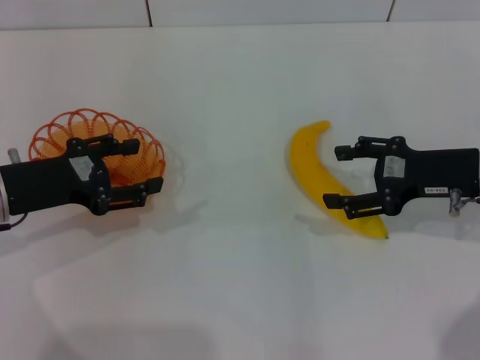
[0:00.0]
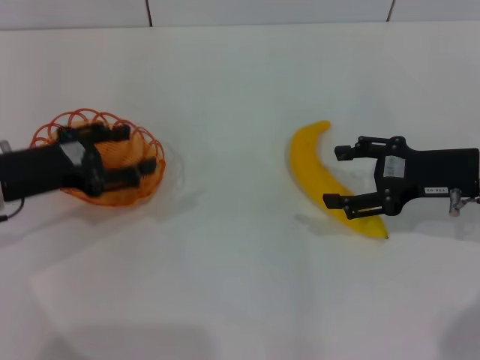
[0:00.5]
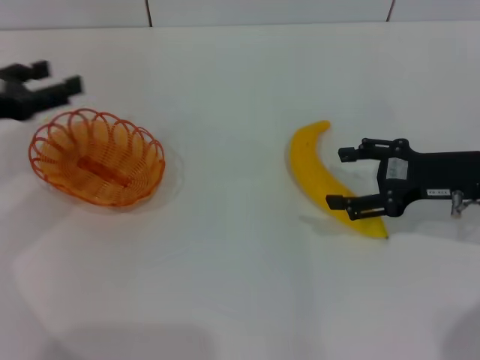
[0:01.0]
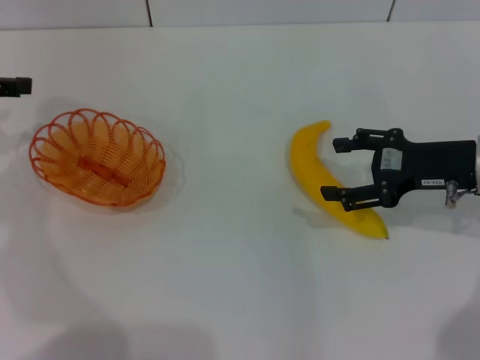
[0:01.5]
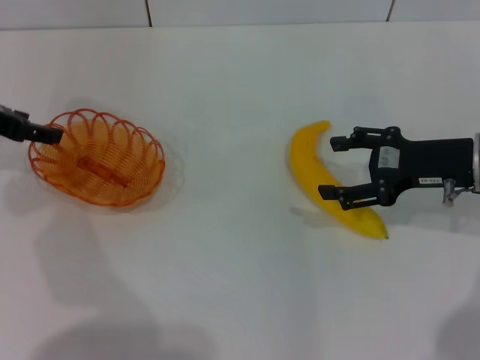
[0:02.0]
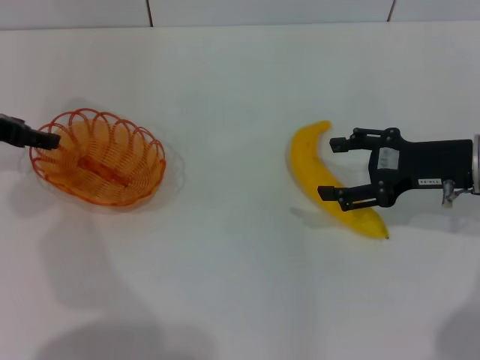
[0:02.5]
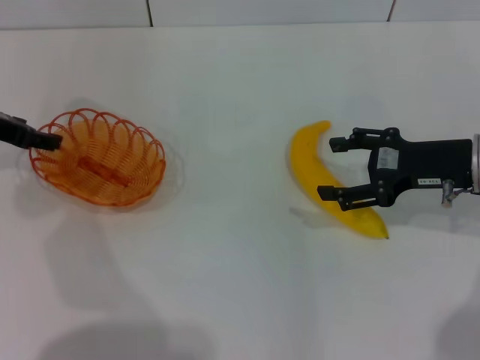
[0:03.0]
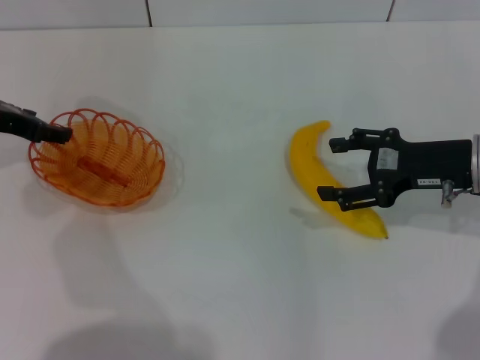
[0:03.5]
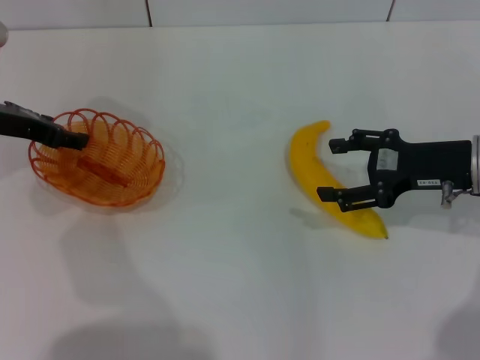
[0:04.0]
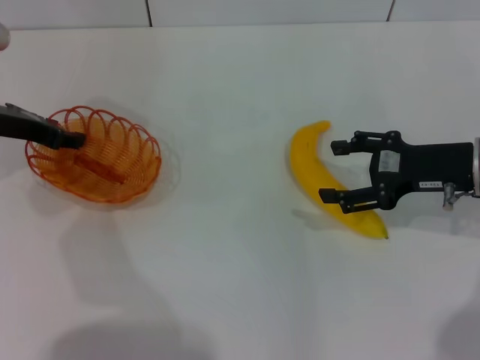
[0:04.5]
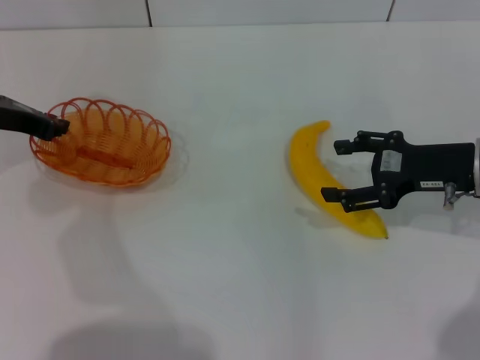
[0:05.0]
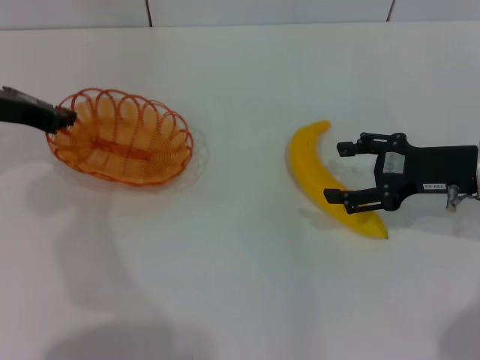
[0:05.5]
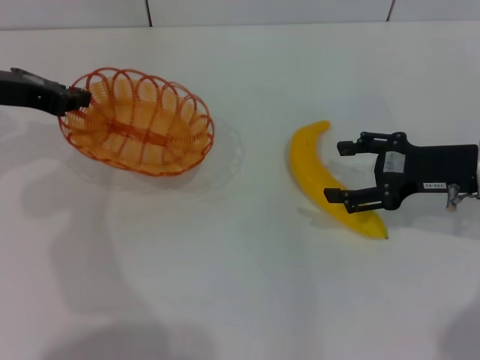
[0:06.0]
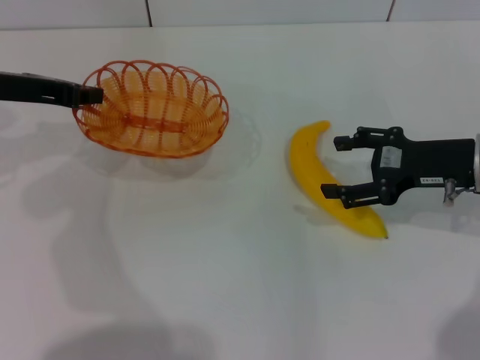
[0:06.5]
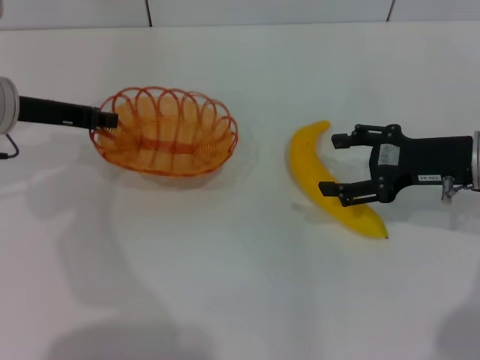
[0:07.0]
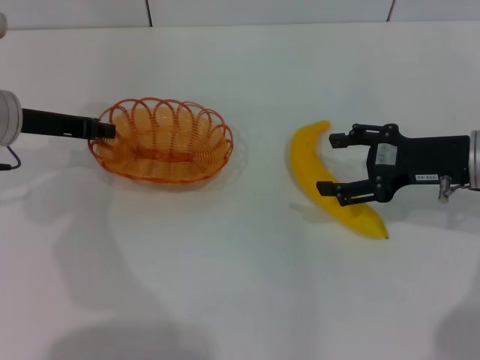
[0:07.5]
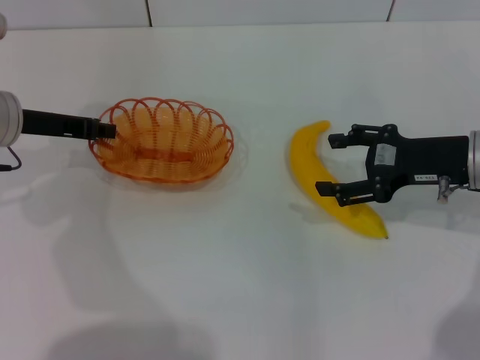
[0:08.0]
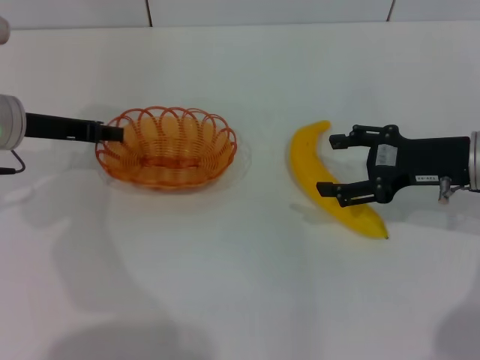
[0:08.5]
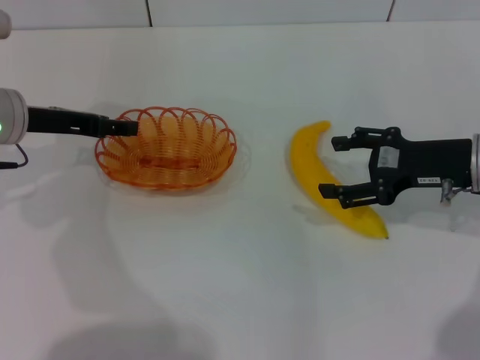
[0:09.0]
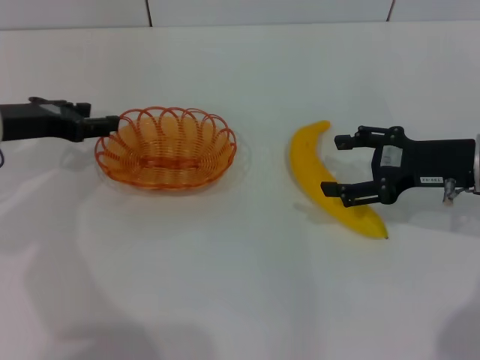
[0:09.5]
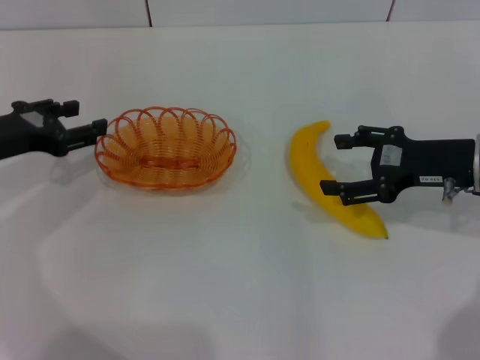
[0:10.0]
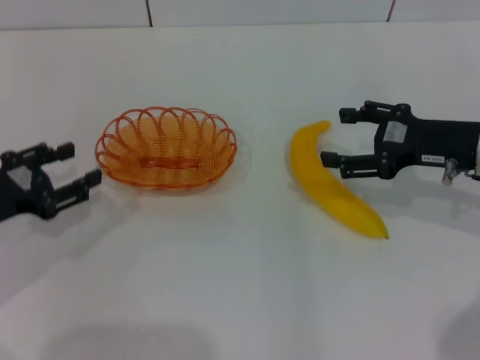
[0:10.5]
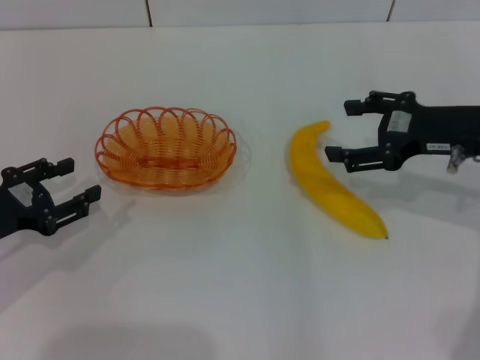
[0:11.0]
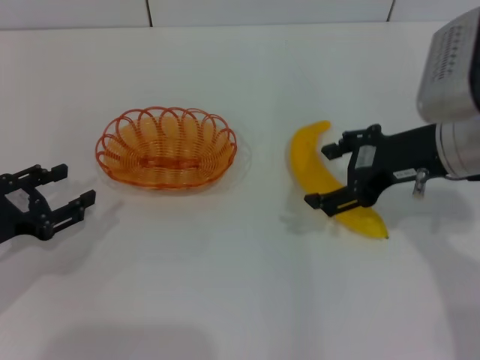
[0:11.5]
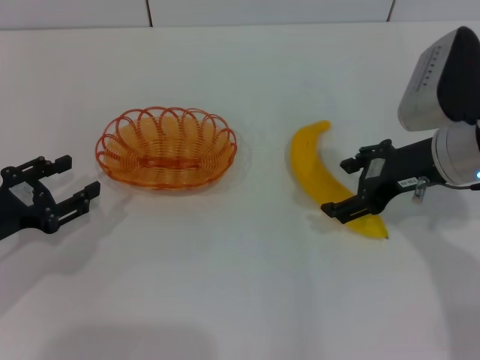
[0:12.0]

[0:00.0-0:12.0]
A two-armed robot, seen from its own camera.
Step, 0:00.0 to 0:05.5: Pick up the basket with the left gripper.
Step, 0:06.0 to 0:09.0: Place the basket in the center of view with the left gripper.
0:00.0 to 0:02.0: The left gripper goes roughly 10 cm forward and upward.
0:02.0 to 0:04.0: There are only small adjustments of the grippers.
0:04.0 to 0:06.0: The left gripper closes its fingers.
0:06.0 to 0:08.0: The left gripper goes roughly 5 cm downward.
0:08.0 to 0:10.0: The left gripper moves some 5 cm, and opens.
0:10.0 to 0:12.0: The right gripper heads to the left, covering roughly 5 cm. Meanwhile the left gripper is displaced backward and downward by roughly 10 cm.

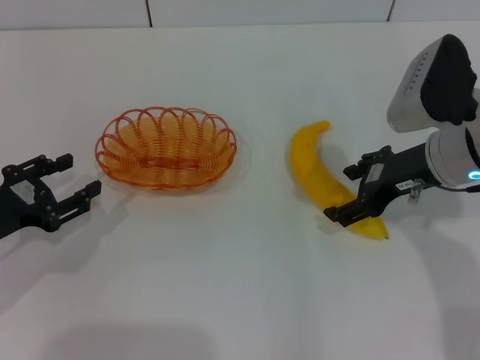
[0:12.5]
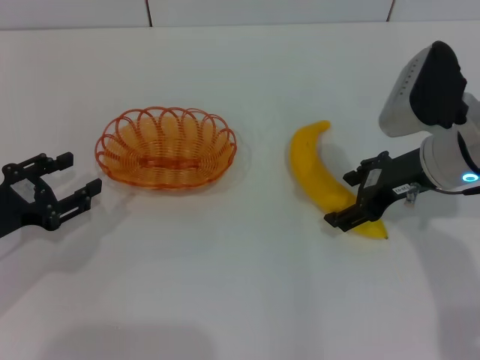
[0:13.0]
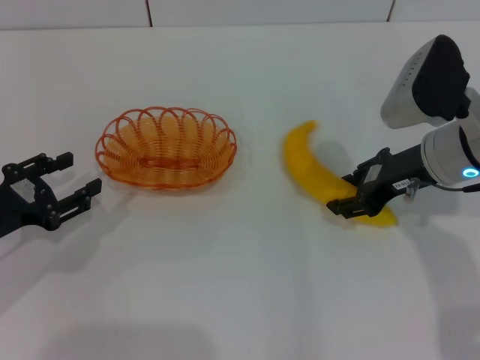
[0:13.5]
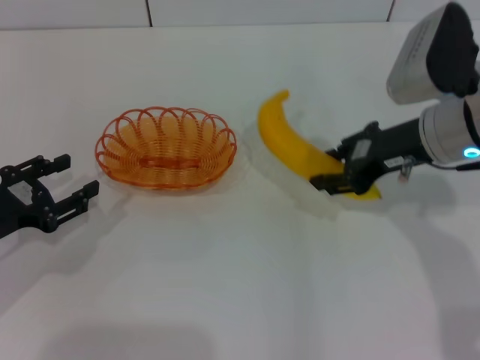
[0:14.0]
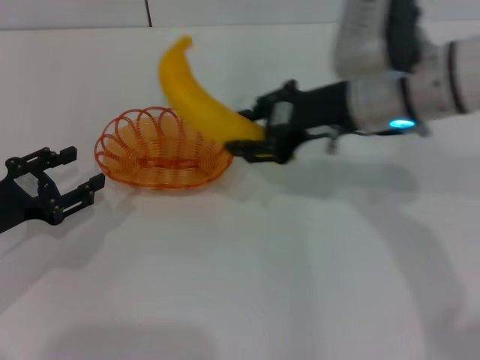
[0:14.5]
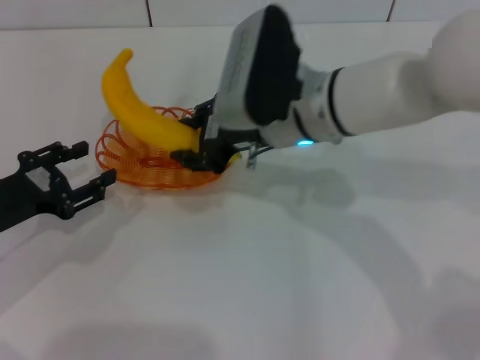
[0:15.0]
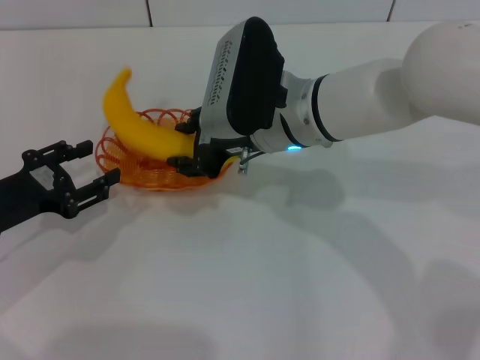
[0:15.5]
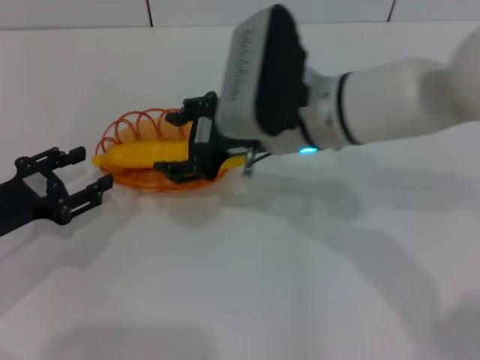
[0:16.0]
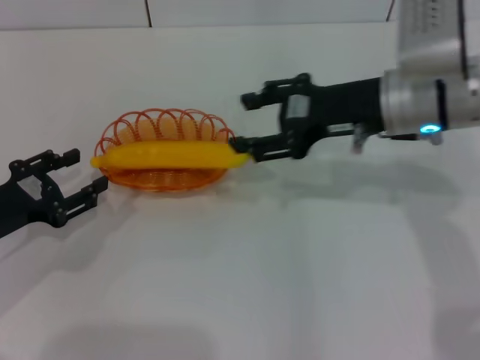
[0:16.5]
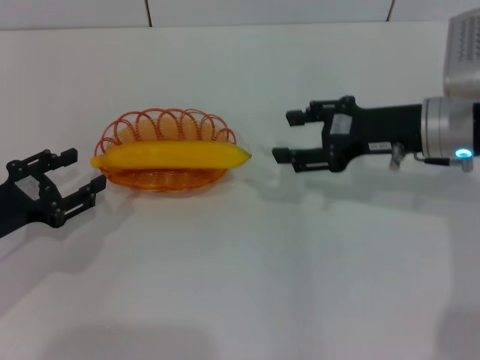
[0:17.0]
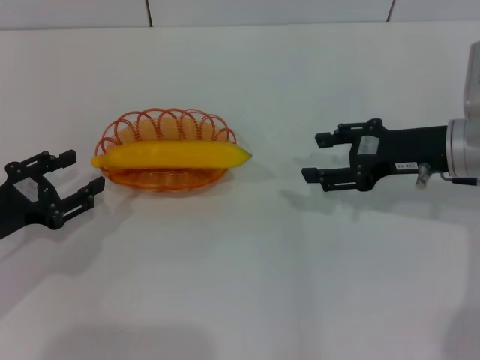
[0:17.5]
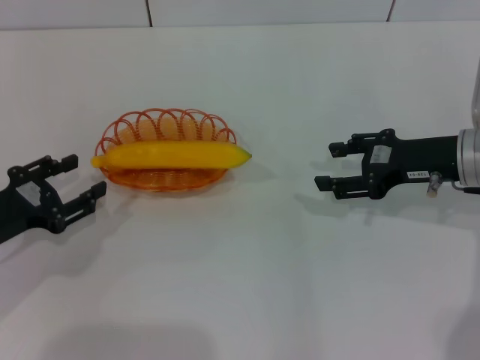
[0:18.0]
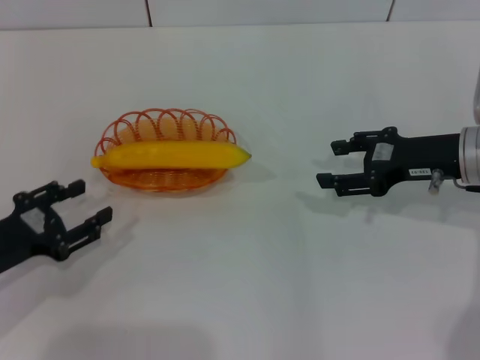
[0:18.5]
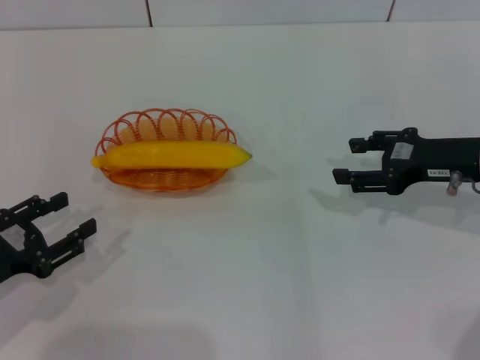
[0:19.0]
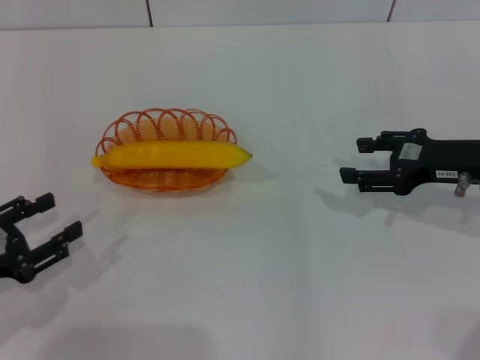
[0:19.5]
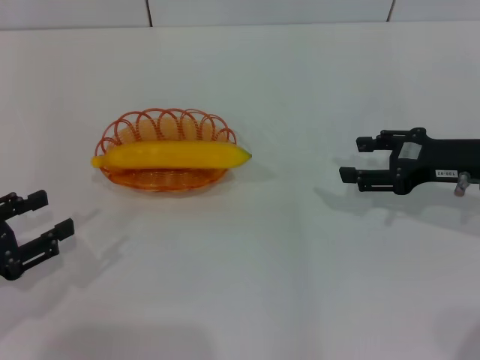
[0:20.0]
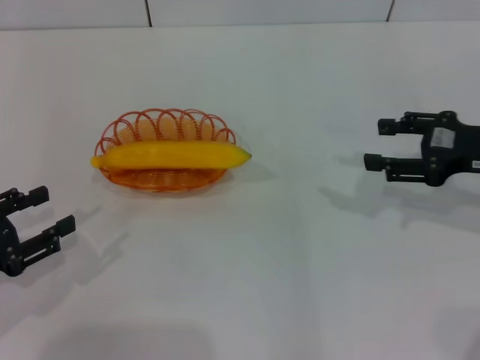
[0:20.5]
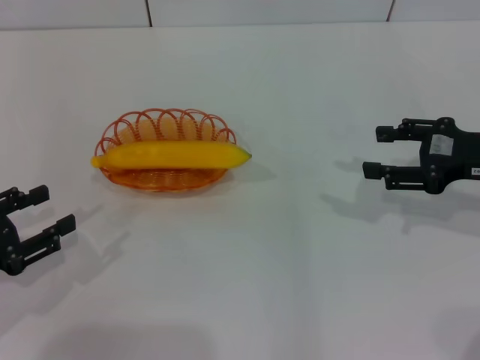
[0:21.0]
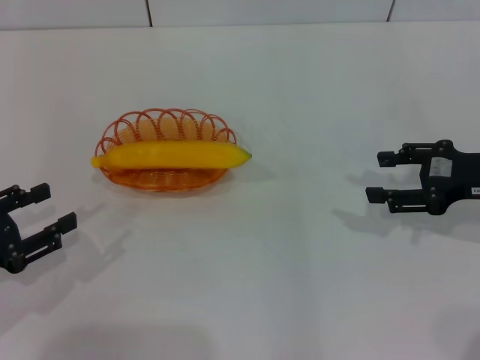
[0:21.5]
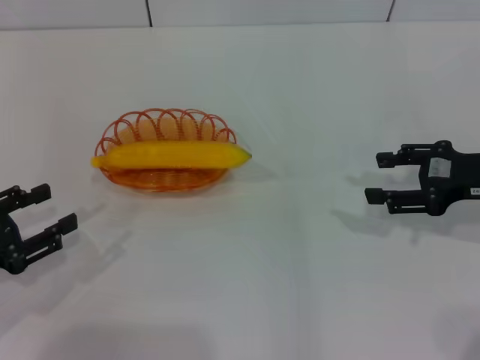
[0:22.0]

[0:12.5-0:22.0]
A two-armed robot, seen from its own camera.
Step, 0:14.5 to 0:17.0: Place the banana into the basket with the right gripper.
0:12.5 to 0:14.5: The right gripper travels to the left by approximately 5 cm, and closes its fingers.
0:14.5 to 0:16.5: The right gripper goes to the left and returns, about 10 cm each way, and opens.
0:16.5 to 0:18.0: The right gripper heads to the right and downward, covering some 10 cm.
0:18.0 to 0:20.0: The left gripper moves backward, some 5 cm.
0:20.0 to 0:22.0: The grippers move only a little.
